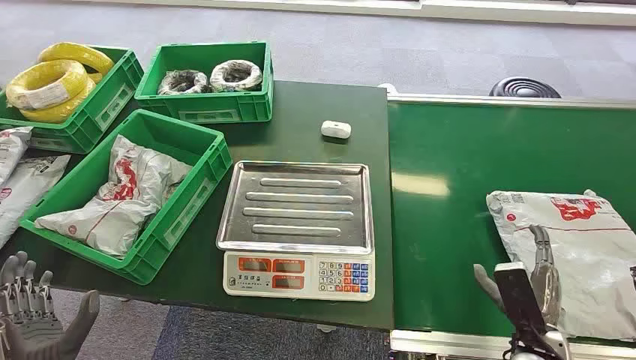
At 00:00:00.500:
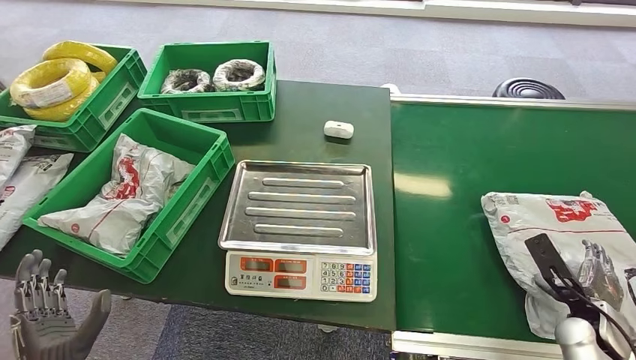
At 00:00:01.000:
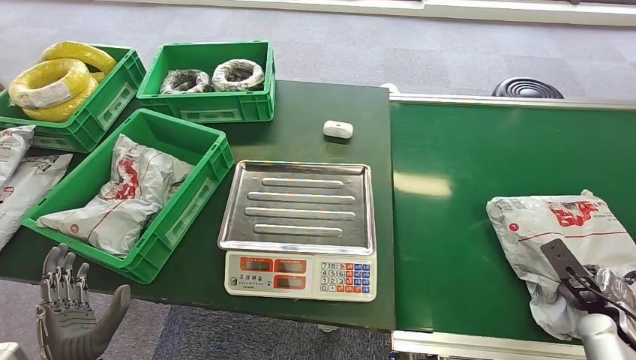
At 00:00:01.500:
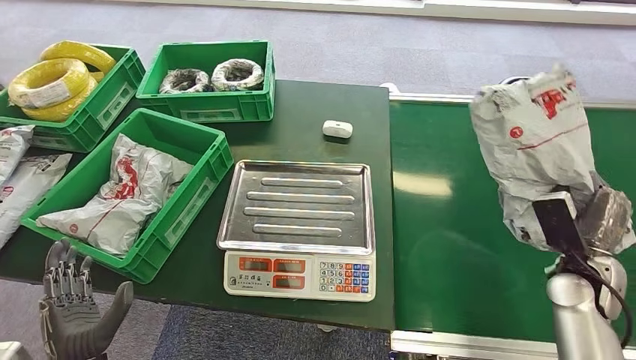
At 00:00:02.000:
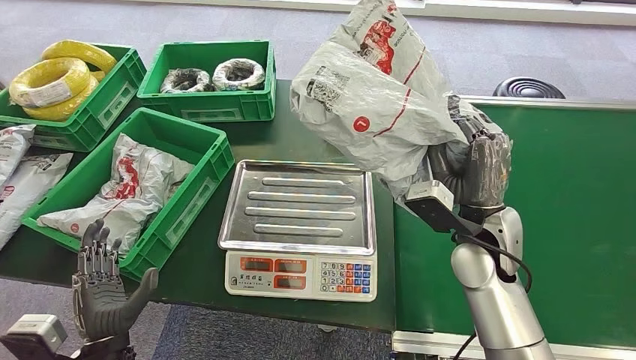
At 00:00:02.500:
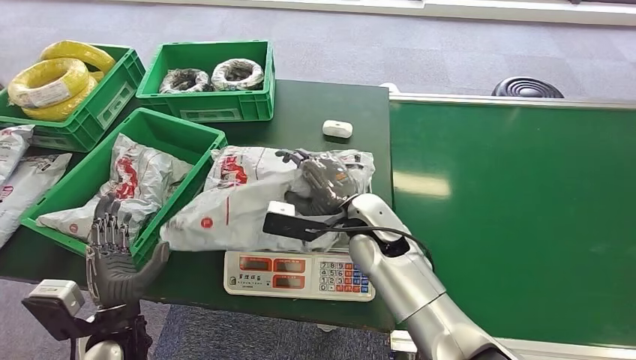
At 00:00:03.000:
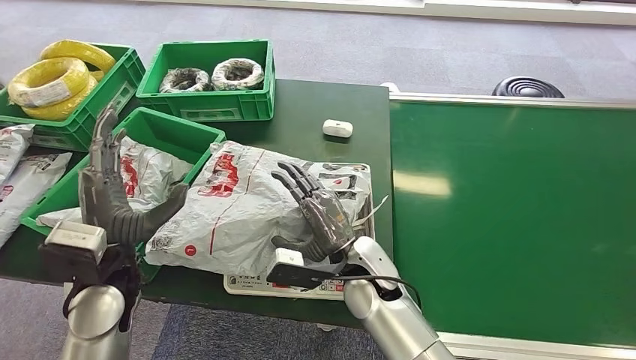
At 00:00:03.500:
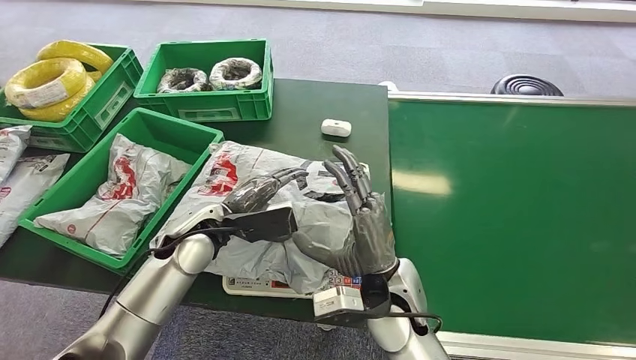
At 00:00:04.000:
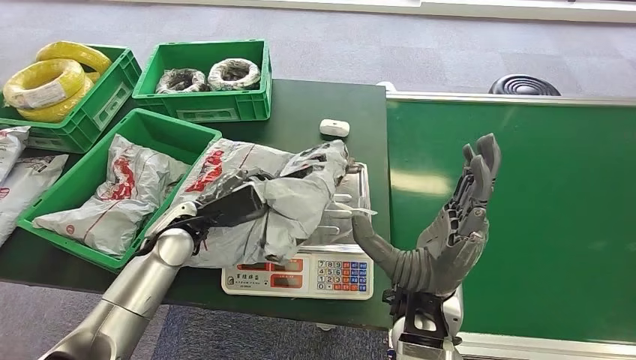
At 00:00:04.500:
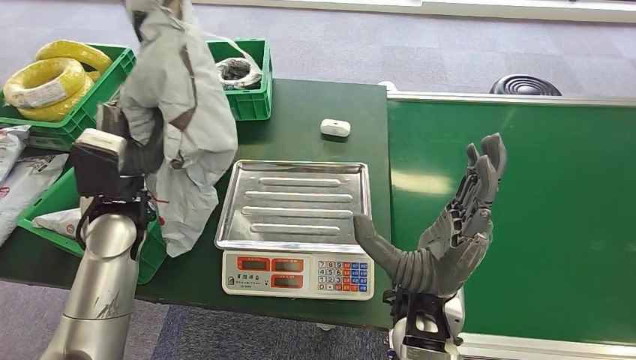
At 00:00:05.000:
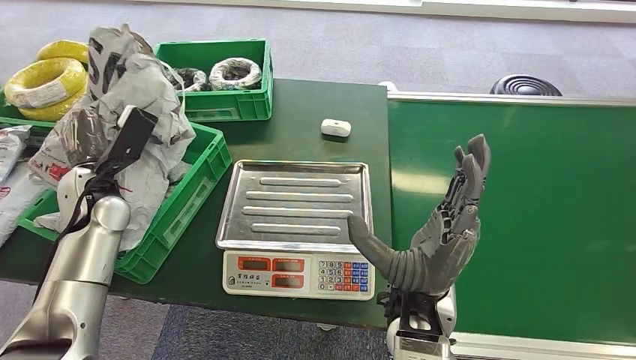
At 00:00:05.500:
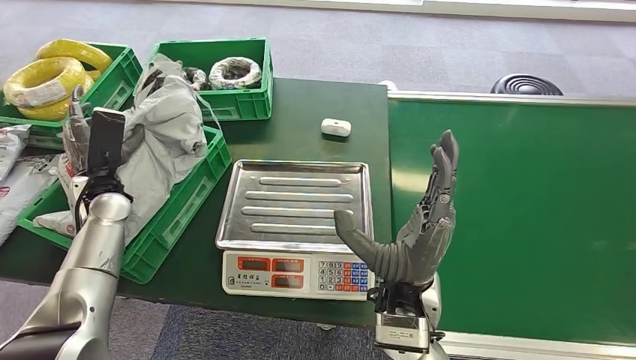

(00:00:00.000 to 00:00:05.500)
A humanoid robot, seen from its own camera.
Step, 00:00:00.000 - 00:00:01.500: Pick up the package from the conveyor belt.
Step, 00:00:02.000 - 00:00:03.000: Place the package onto the inbound machine.
Step, 00:00:03.500 - 00:00:04.500: Pick up the package from the inbound machine.
Step, 00:00:05.000 - 00:00:05.500: Place the package into the parcel locker.
